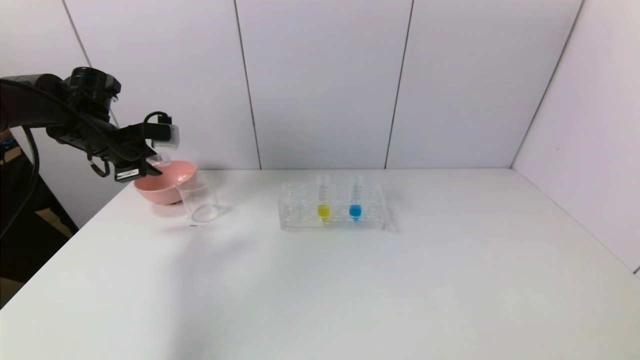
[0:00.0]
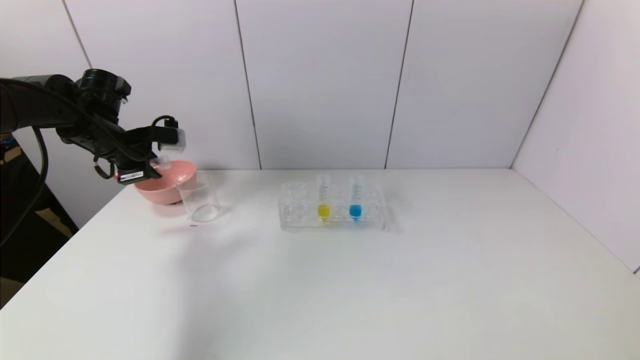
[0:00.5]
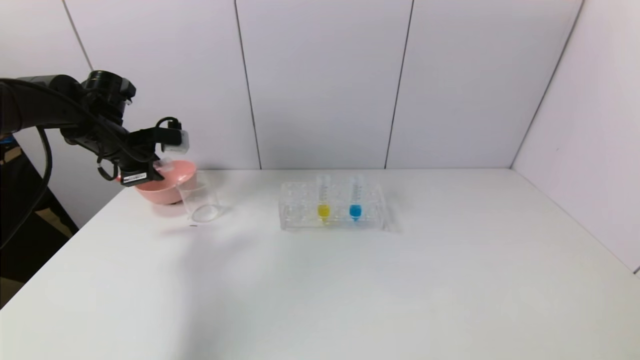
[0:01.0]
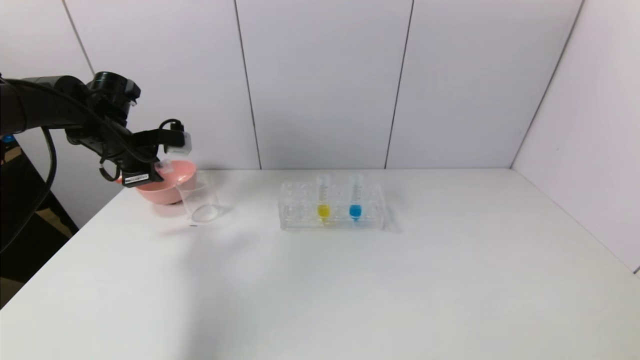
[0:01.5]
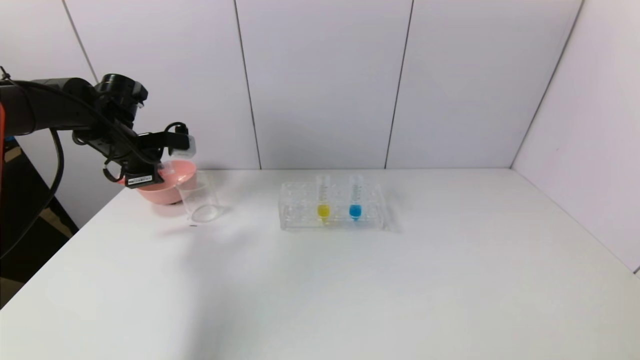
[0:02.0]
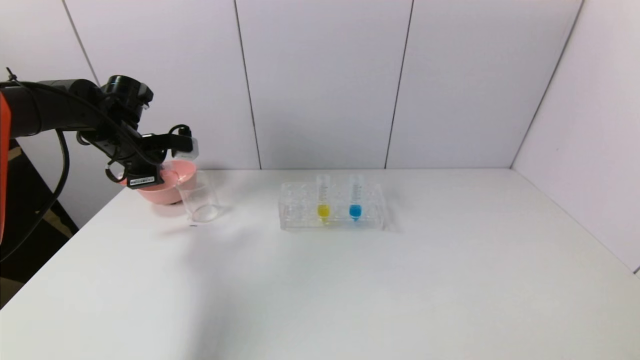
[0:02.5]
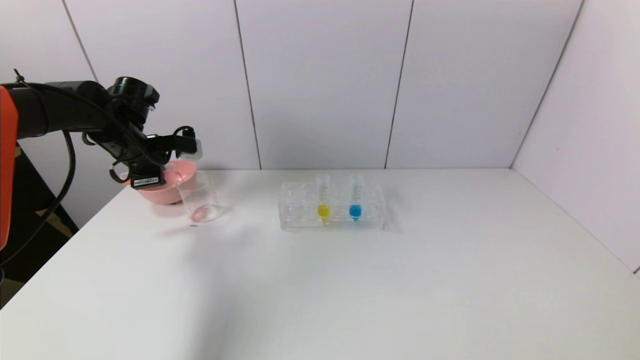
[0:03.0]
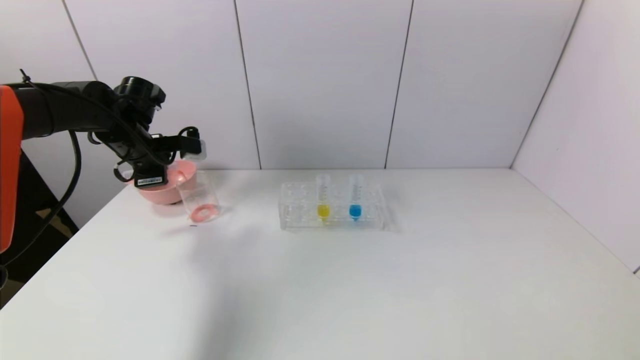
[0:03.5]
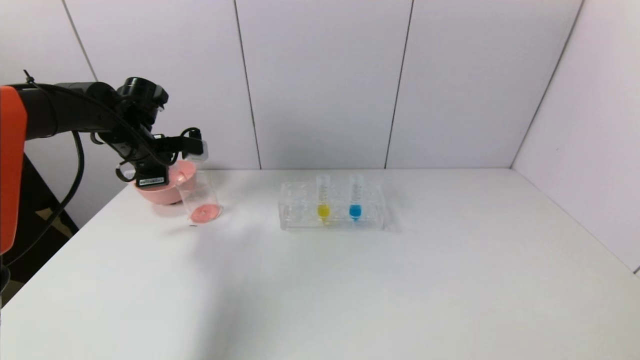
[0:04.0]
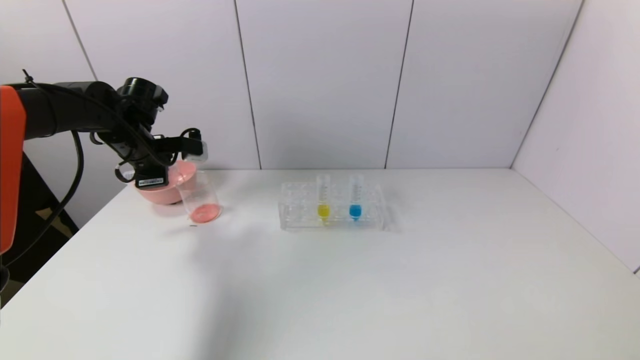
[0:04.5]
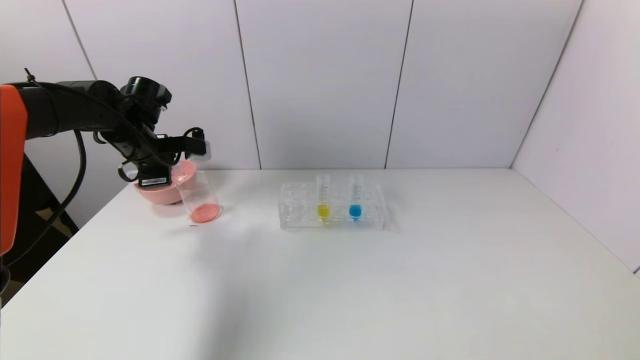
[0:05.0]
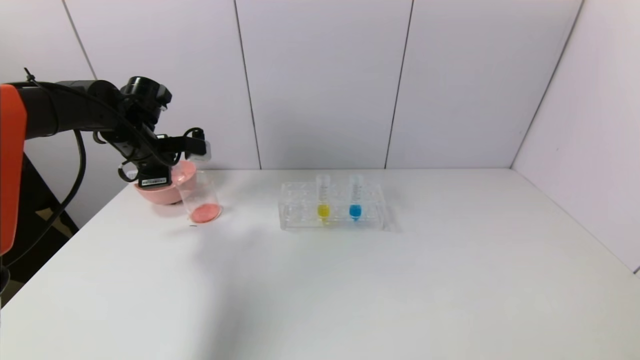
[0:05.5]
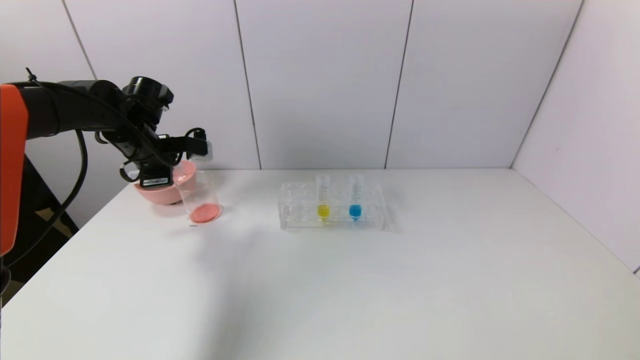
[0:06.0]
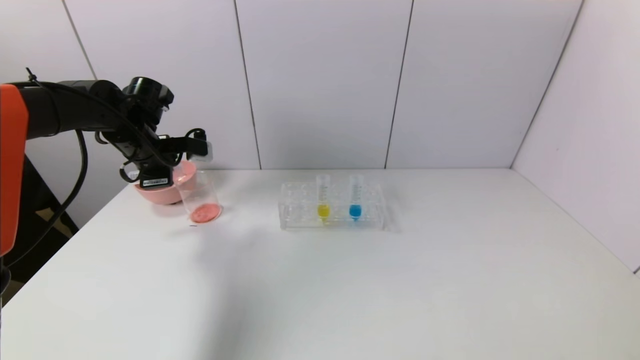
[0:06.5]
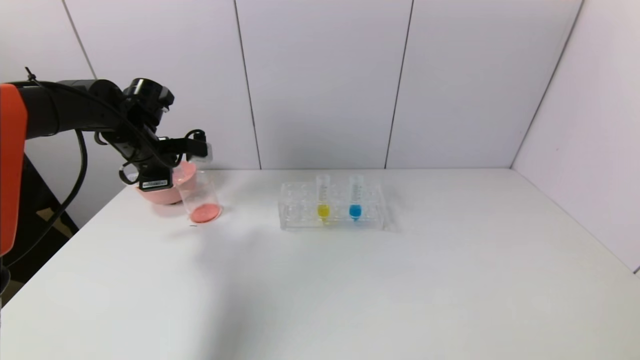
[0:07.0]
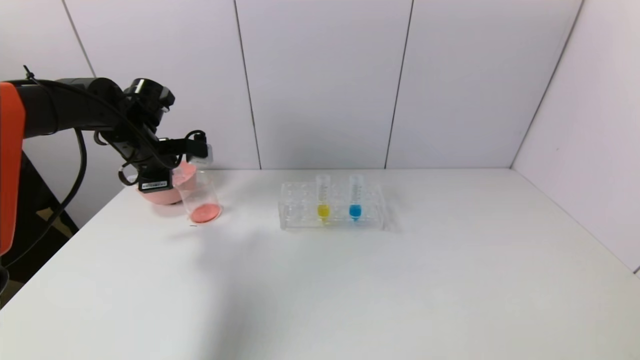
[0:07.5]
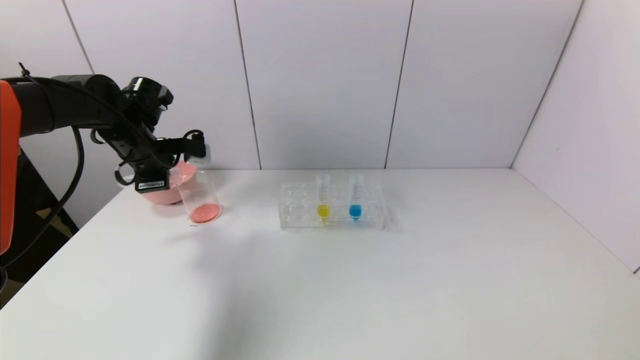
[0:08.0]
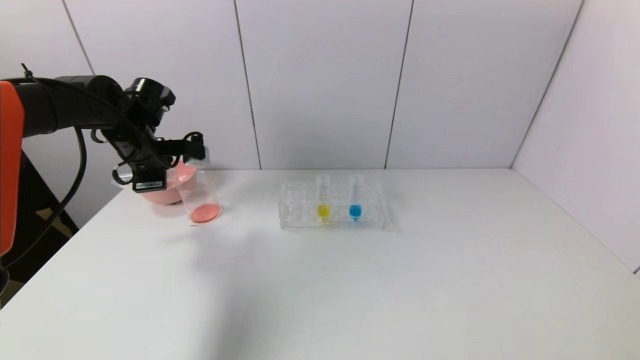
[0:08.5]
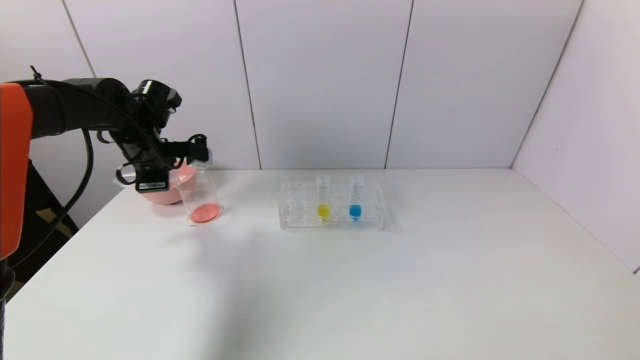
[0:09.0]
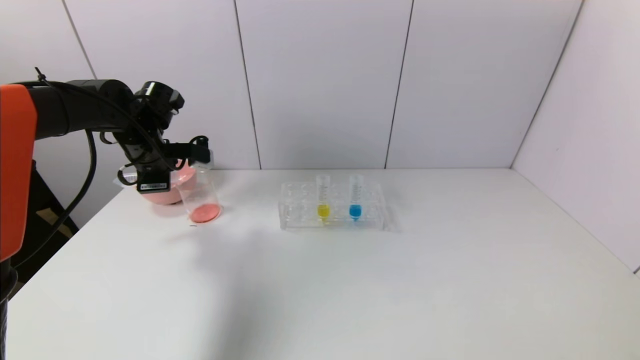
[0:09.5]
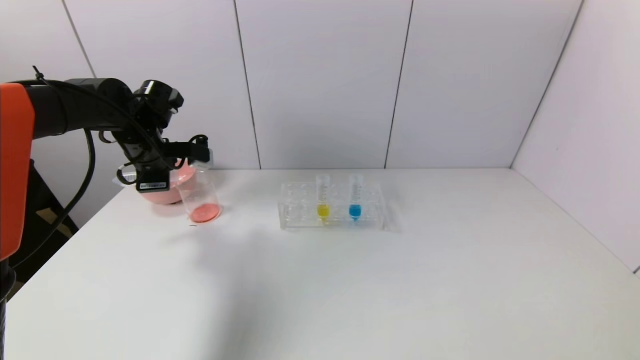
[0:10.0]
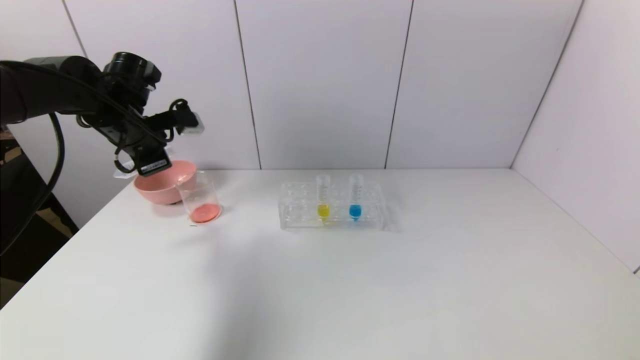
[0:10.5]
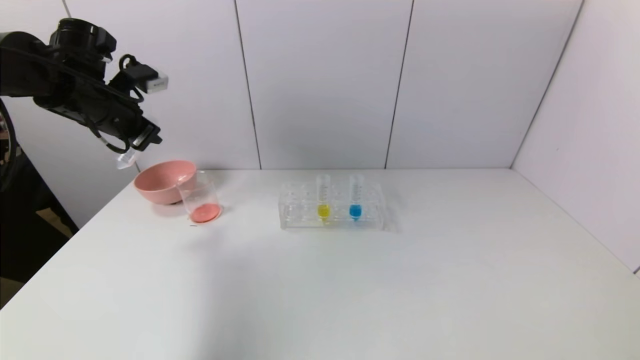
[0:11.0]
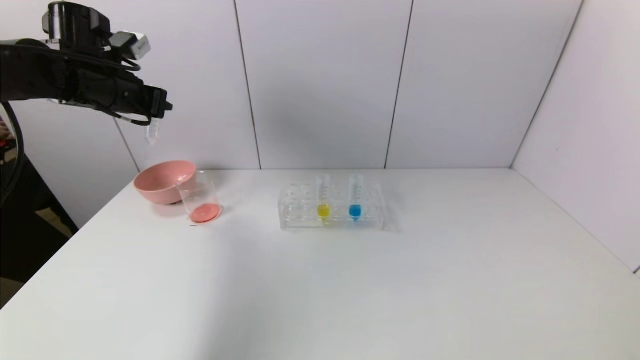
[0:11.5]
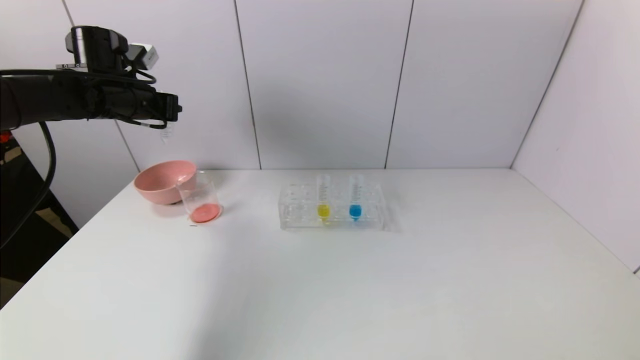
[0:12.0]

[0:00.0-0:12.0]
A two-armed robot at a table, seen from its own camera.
Task of the whole recording: pick up the test tube with red pigment and the test tube with blue pigment by grippers and pour them into the container.
Step, 0:00.0 to 0:11.0: Pour the red reagent into the graduated cylinder with the left gripper.
0:00.0 to 0:04.0: The grippers make only small movements.
0:04.0 to 0:06.0: Both grippers stay put.
0:06.0 to 0:08.0: Both grippers stay put.
0:08.0 to 0:10.0: There are only small adjustments of the grippers.
0:10.0 to 0:12.0: The left gripper moves upward, some 5 cm.

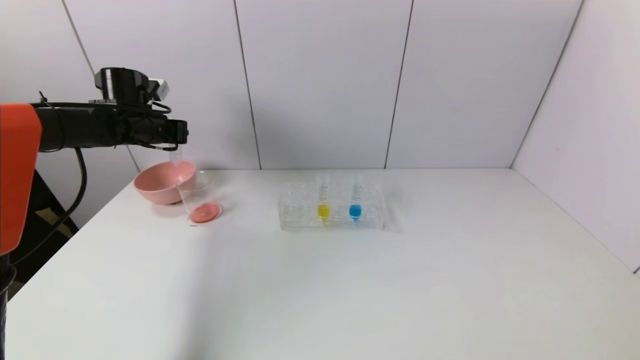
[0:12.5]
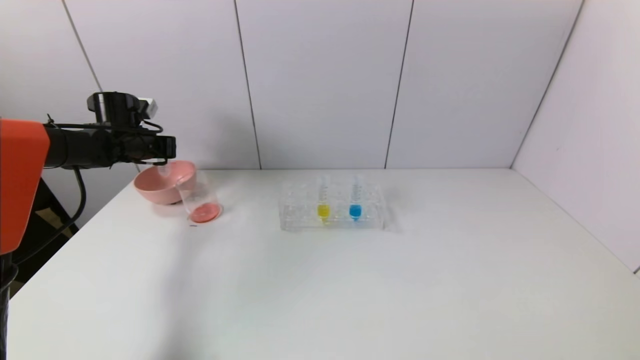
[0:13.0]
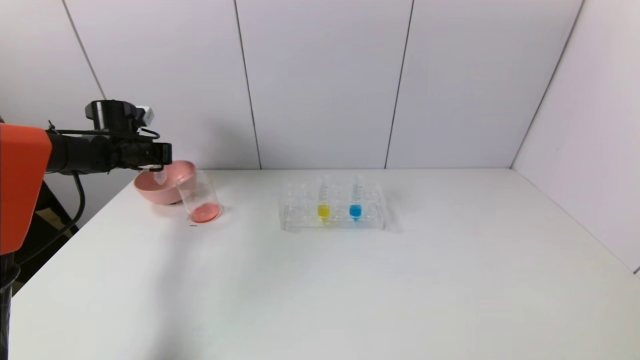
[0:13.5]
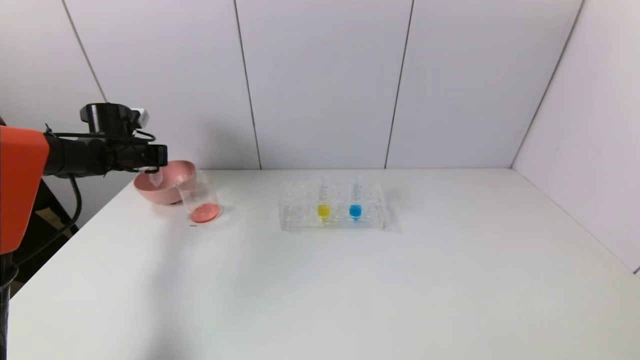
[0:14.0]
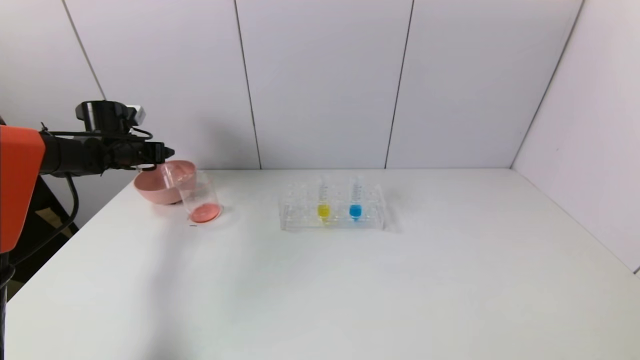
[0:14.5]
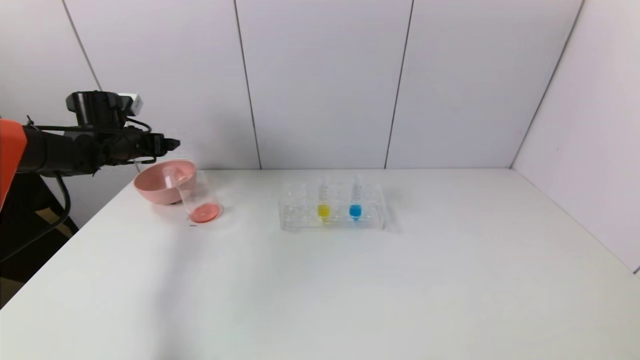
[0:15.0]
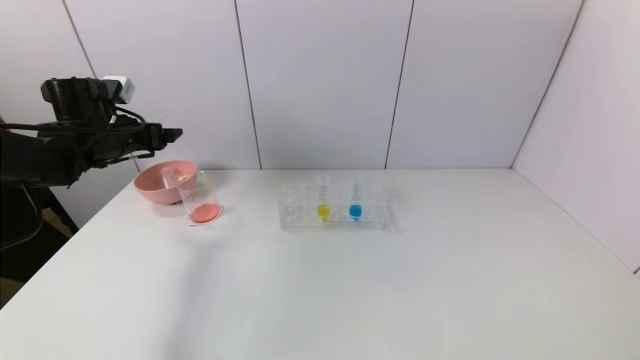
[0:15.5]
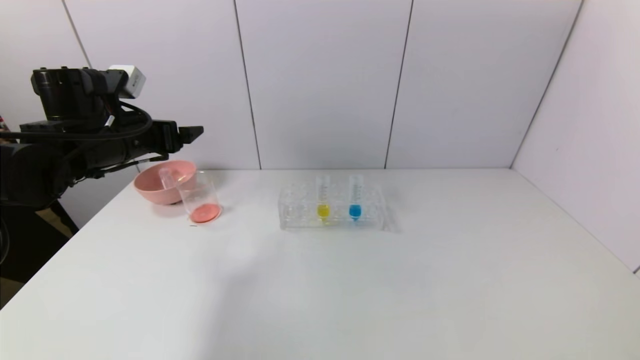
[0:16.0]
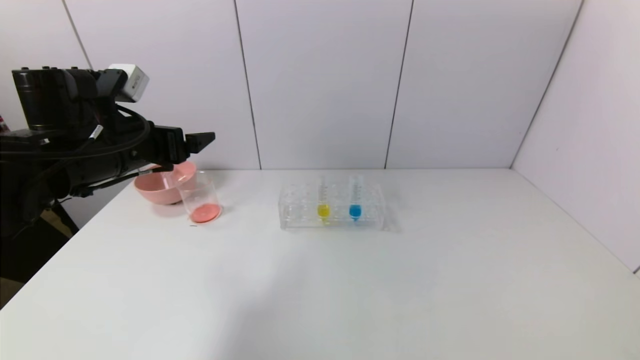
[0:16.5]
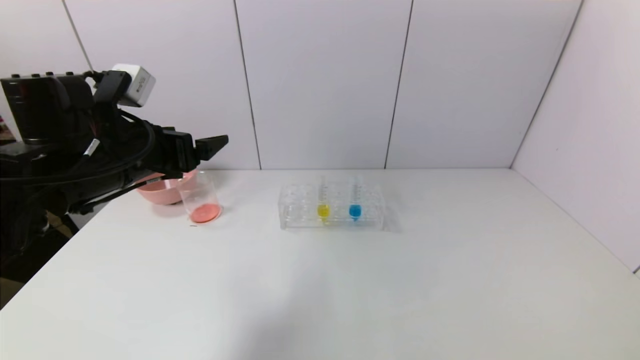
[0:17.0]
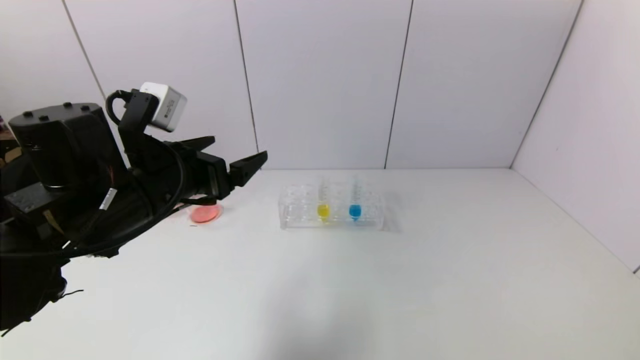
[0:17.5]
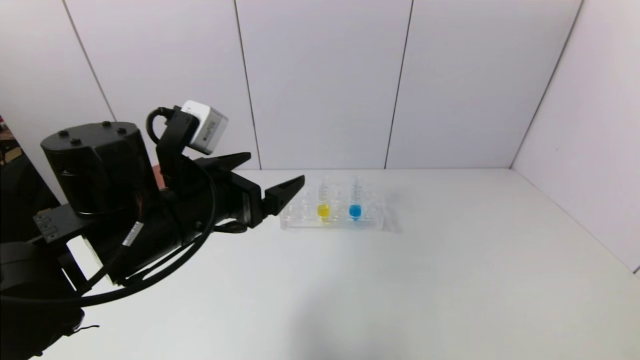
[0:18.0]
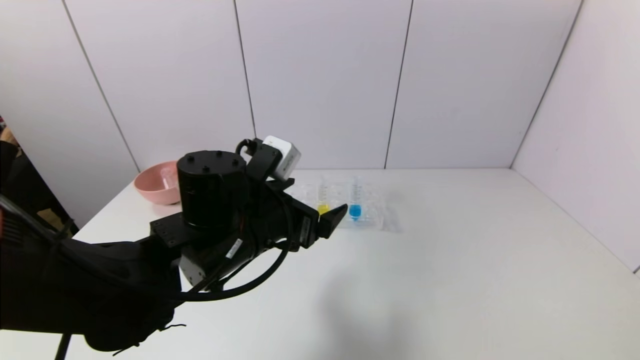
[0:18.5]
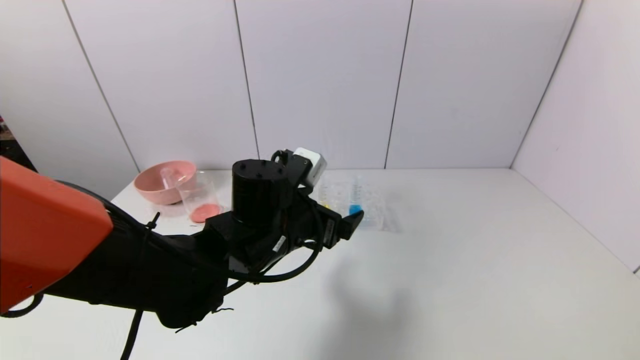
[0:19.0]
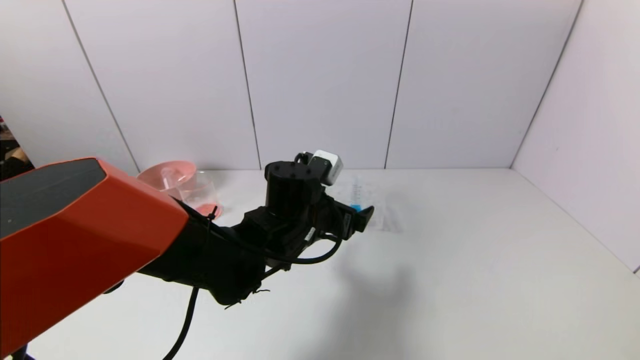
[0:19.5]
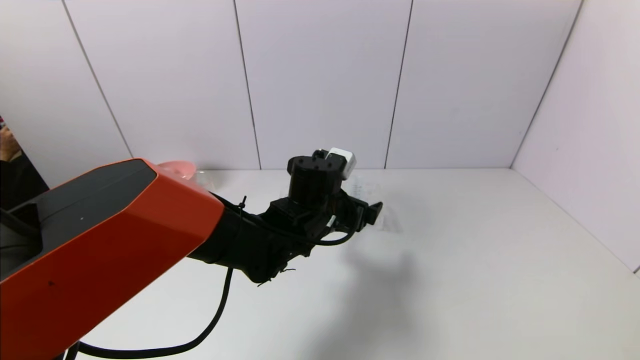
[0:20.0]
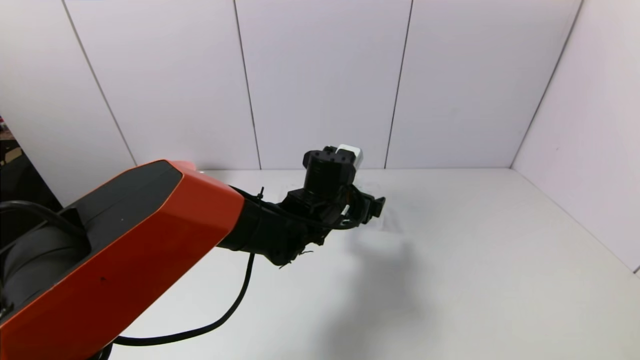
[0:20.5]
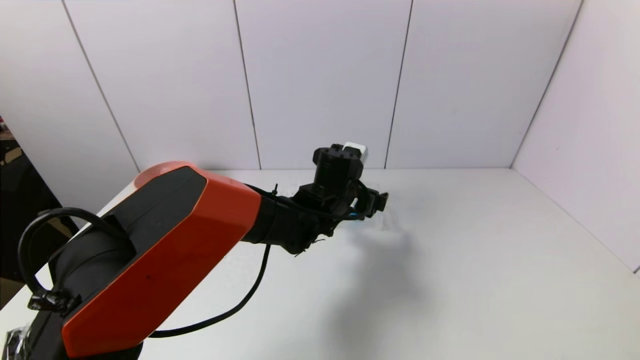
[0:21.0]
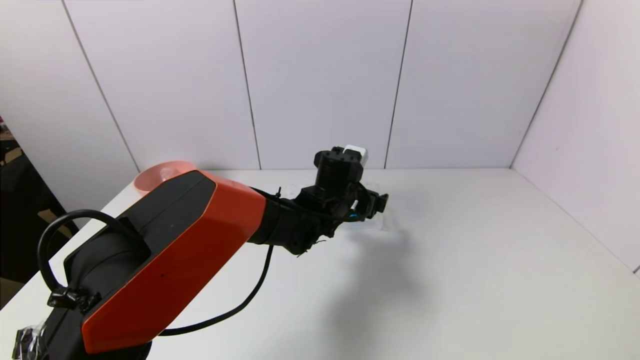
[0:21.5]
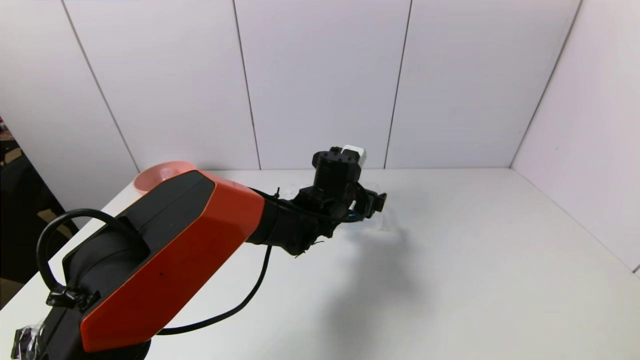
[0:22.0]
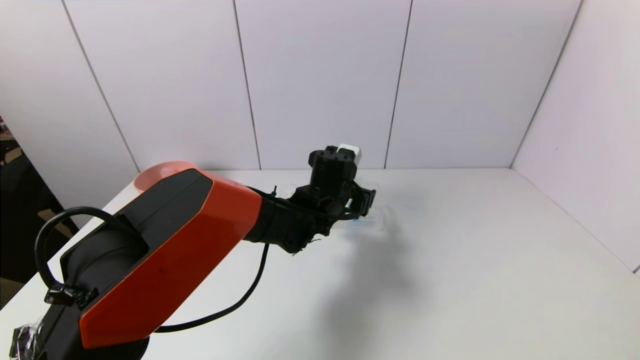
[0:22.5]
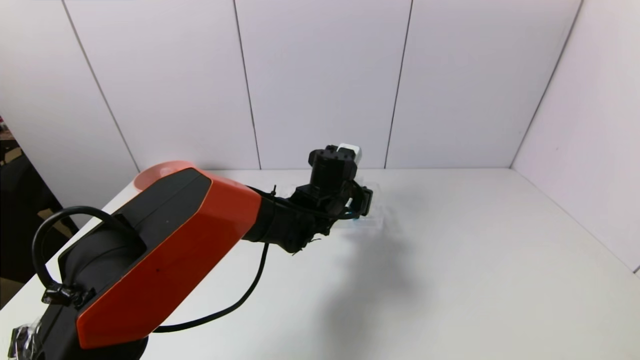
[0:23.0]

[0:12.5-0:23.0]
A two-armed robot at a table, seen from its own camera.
Task of the whole recording: pick up the test tube with red pigment and the test tube with blue pigment by grippers and pour them into the container.
Step, 0:12.5 to 0:15.5: Place the test tube into the bowl with the left gripper.
Step, 0:16.0 to 0:22.5: Grasp the blue reagent with the left gripper.
0:12.5 to 0:14.5: The left gripper travels to the left and downward by roughly 10 cm, and opens its fingers.
0:14.5 to 0:16.5: The left gripper moves backward, to the right and upward, some 25 cm.
0:16.5 to 0:19.0: The left gripper is displaced to the right and downward by roughly 20 cm.
0:19.0 to 0:21.0: The left gripper heads forward and to the right, covering some 15 cm.
0:21.0 to 0:23.0: The left gripper closes up.
